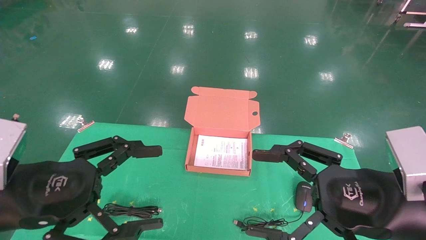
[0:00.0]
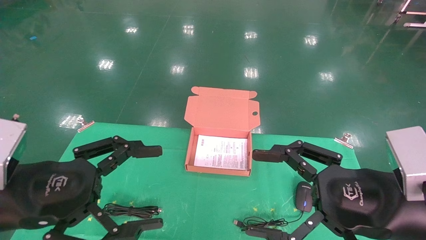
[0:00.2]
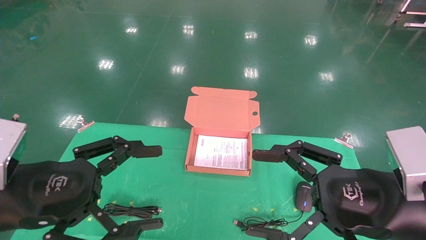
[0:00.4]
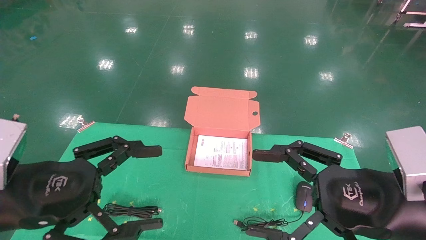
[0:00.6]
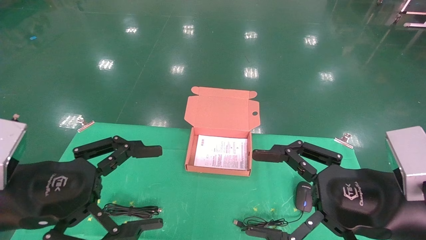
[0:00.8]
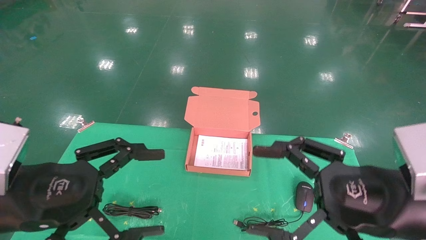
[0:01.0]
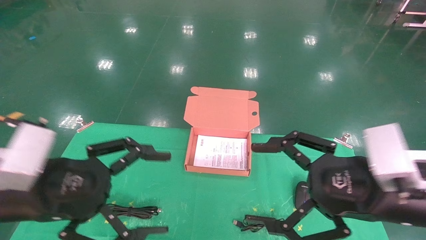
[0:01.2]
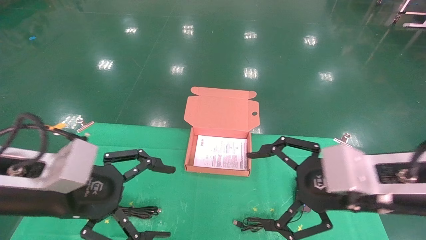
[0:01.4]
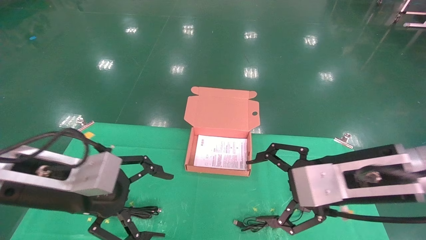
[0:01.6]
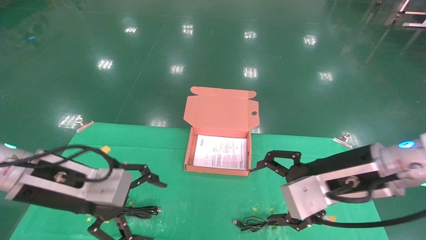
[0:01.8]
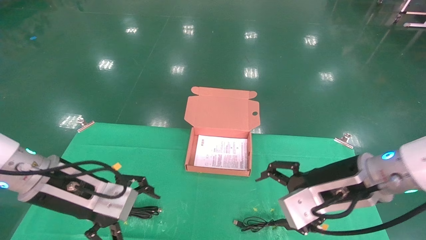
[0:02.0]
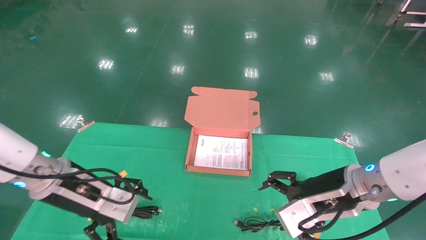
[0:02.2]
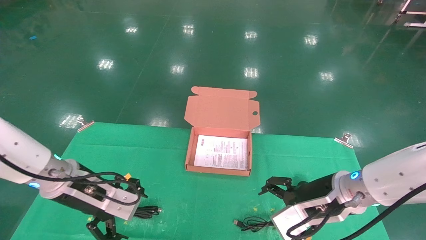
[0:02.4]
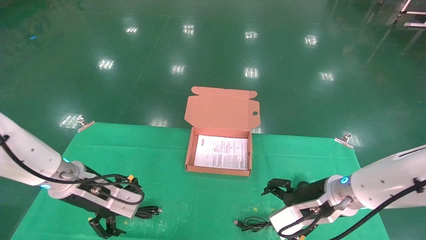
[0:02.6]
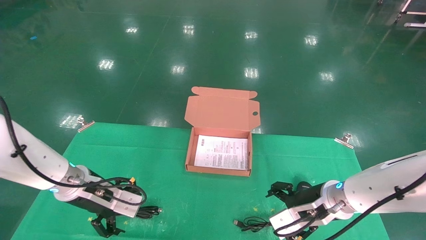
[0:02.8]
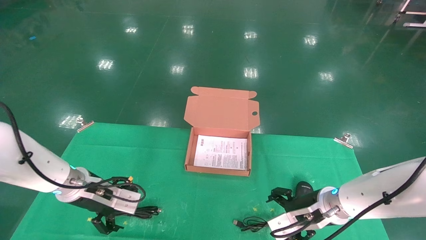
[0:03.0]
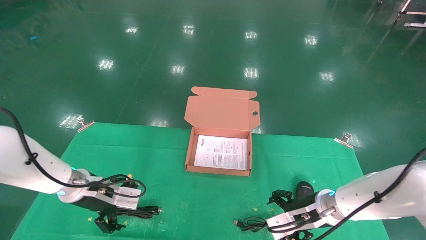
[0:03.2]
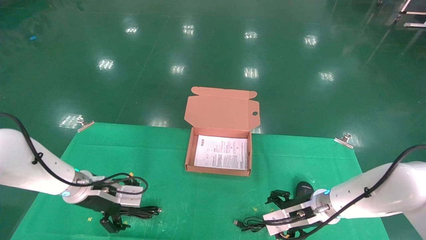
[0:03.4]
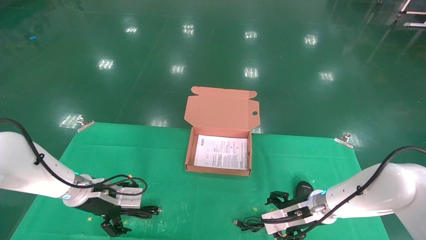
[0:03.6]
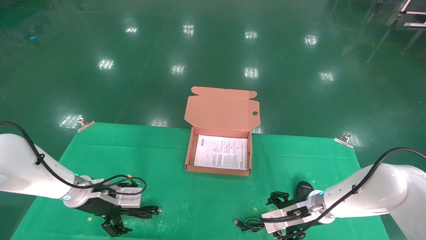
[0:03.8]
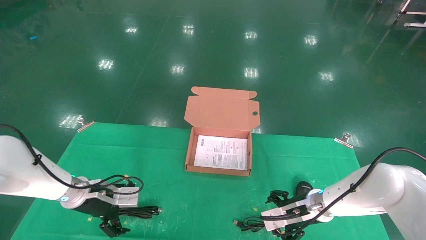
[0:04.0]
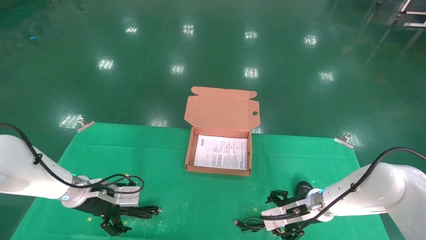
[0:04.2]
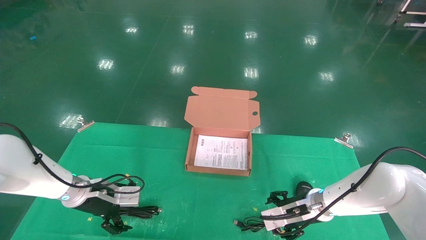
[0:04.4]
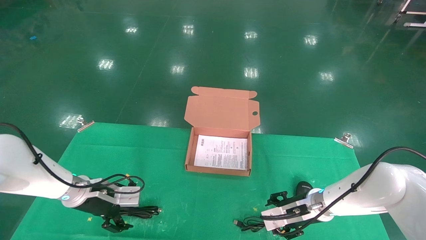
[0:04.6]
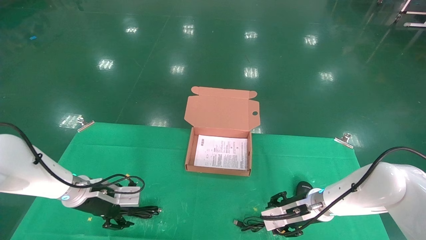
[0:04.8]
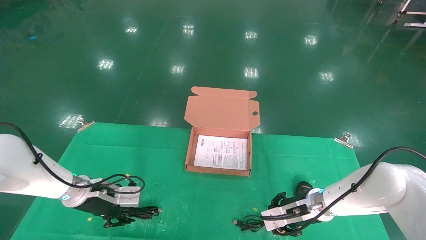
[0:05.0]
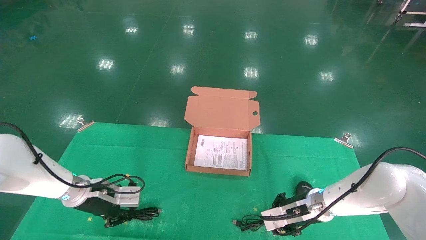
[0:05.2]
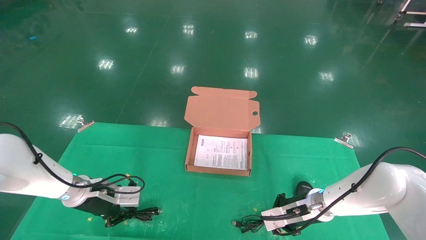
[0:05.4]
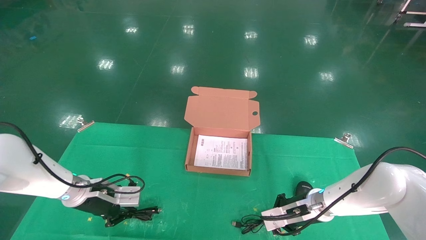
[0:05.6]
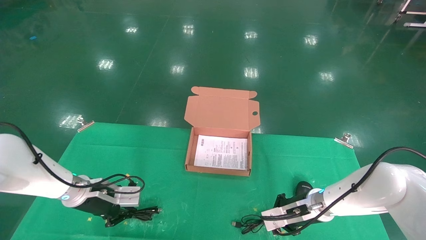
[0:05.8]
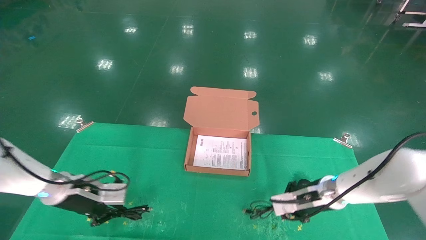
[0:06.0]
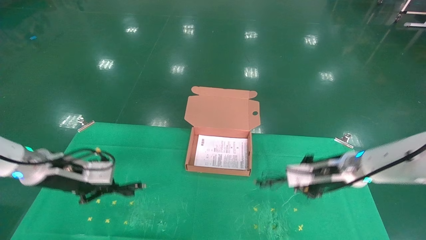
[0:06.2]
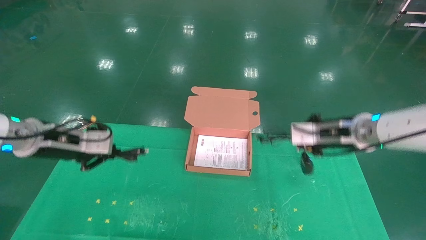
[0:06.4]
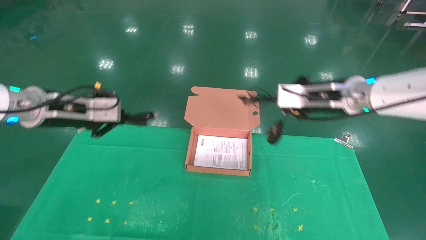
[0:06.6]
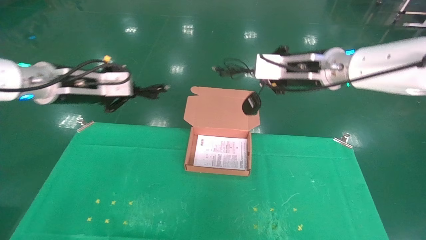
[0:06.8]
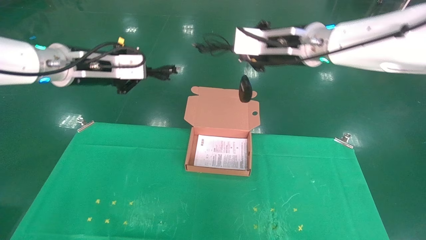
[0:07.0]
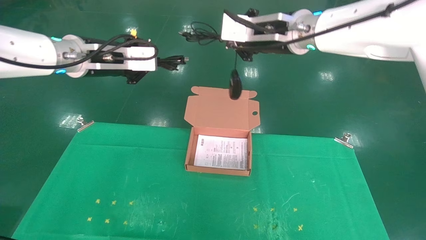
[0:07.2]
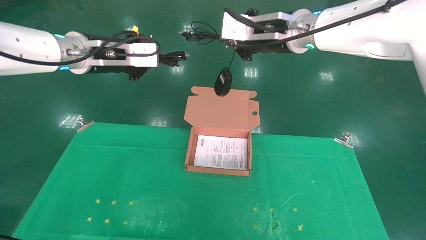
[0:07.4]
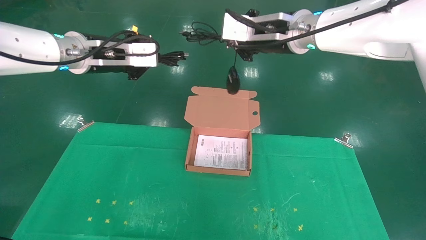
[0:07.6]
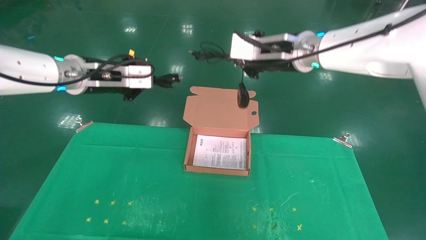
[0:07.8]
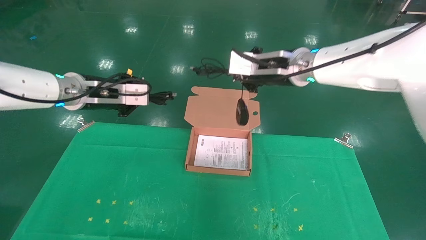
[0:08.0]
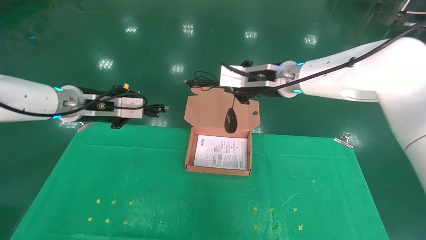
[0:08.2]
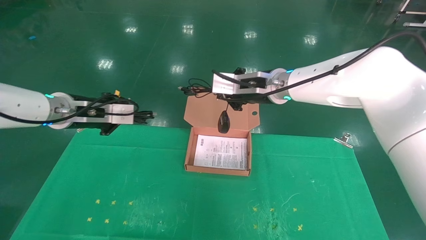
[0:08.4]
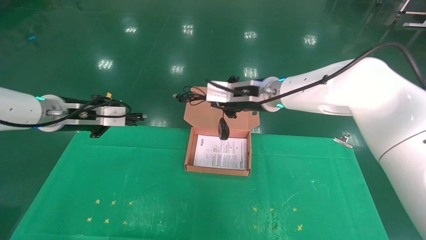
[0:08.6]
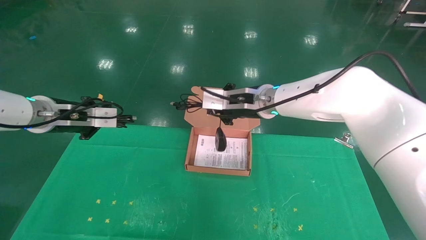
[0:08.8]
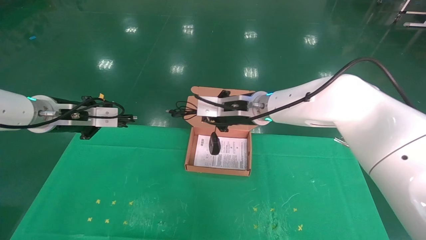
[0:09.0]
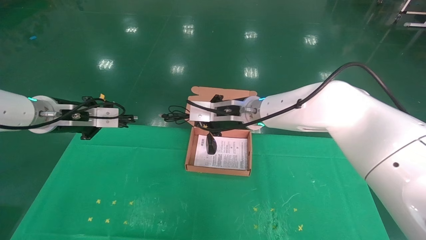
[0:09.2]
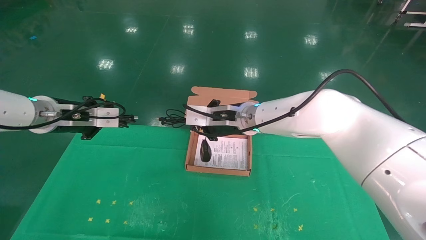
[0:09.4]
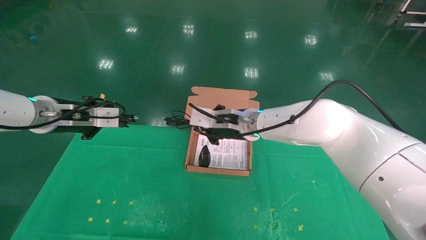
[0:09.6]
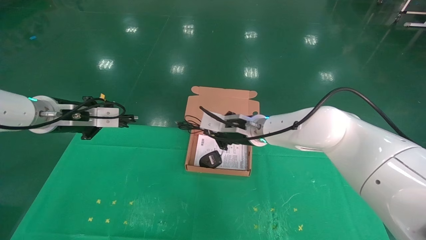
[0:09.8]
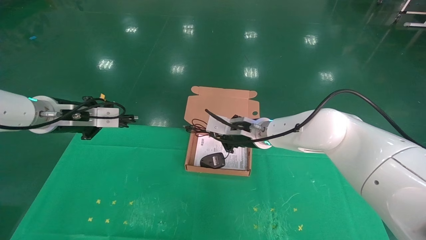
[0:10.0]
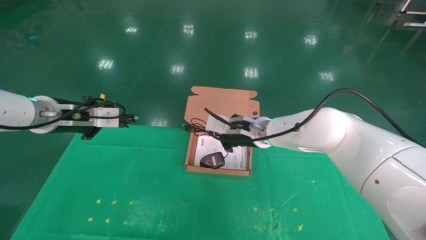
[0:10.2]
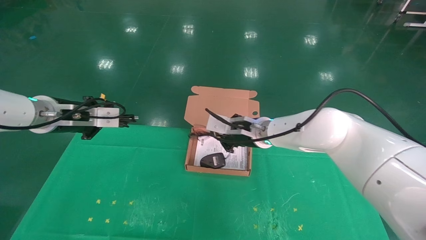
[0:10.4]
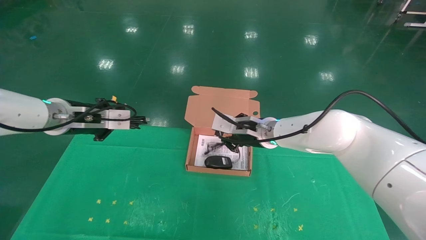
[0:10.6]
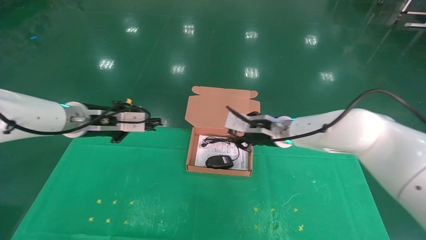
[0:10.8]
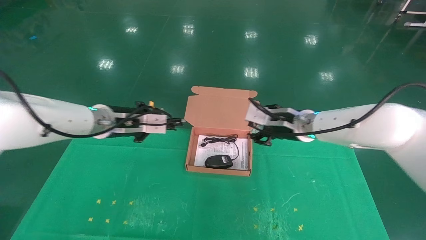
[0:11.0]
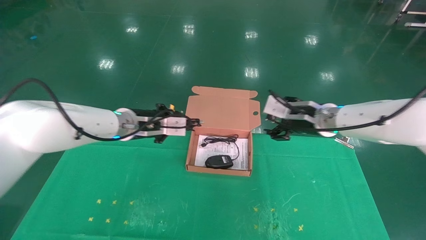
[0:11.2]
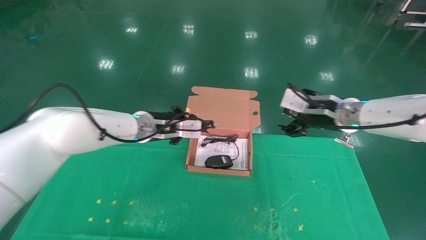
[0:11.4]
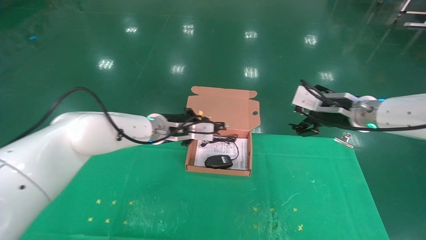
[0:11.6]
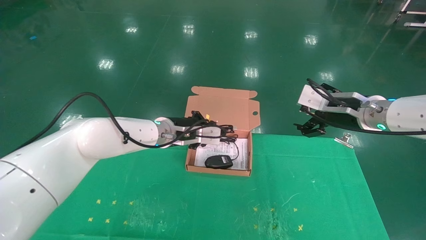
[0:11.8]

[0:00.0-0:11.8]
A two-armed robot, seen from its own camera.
Task of the whole recording: grasp data cable left put into box grasp mouse right put into box.
Step, 0:01.0 to 0:06.0: Grab and pick up both the mouse and power cord from the accessory packaging area at the same time.
0:01.4 to 0:03.0: The left gripper moves forward and downward, some 20 cm, while the right gripper travels downward and forward by approximately 20 cm.
0:03.0 to 0:04.4: The left gripper shifts by some 5 cm; the right gripper moves roughly 5 cm.
0:04.4 to 0:06.0: The grippers both shift upward by roughly 5 cm. The right gripper closes up; the left gripper closes up.
0:06.0 to 0:07.4: The right gripper shifts about 30 cm upward and to the left. The left gripper moves upward and to the right, some 25 cm.
0:07.4 to 0:08.8: The right gripper moves downward, about 15 cm. The left gripper moves downward and to the left, some 15 cm.
0:08.8 to 0:10.4: The right gripper heads downward, covering roughly 5 cm.
0:10.4 to 0:11.8: The right gripper moves to the right and backward, approximately 20 cm, and opens up, while the left gripper shifts approximately 20 cm to the right.

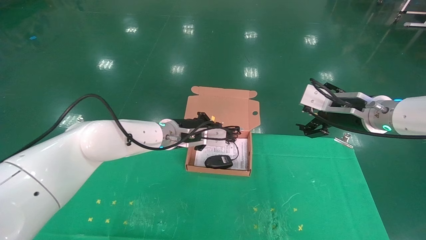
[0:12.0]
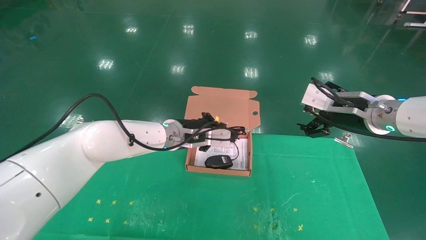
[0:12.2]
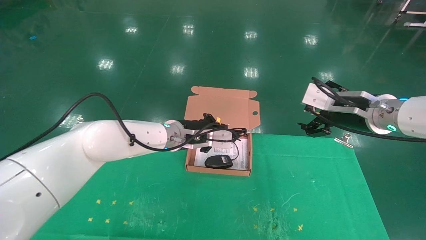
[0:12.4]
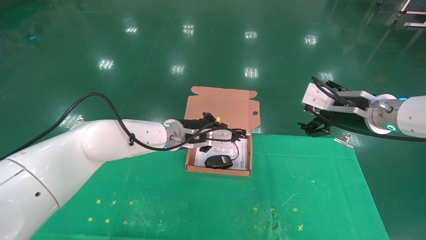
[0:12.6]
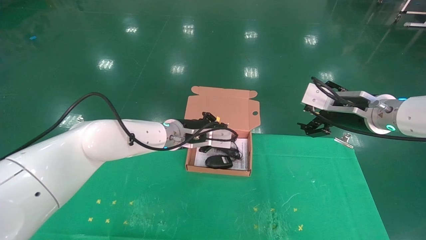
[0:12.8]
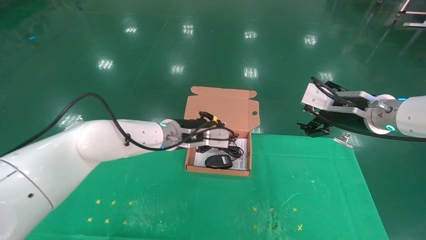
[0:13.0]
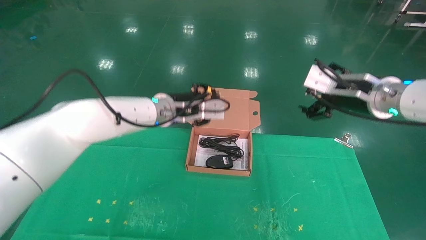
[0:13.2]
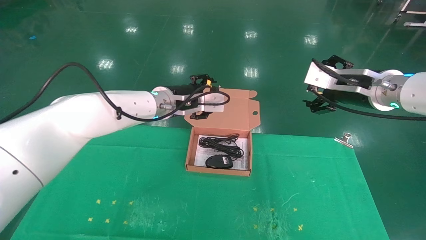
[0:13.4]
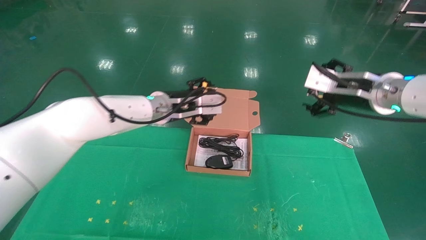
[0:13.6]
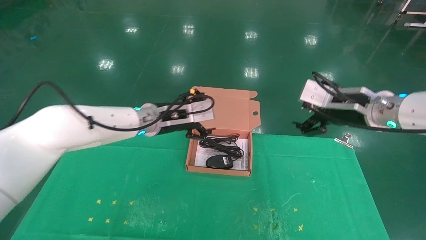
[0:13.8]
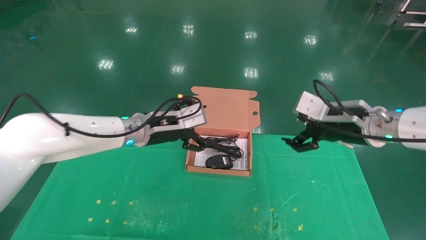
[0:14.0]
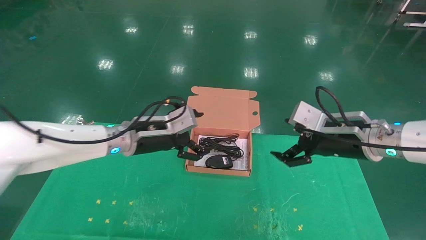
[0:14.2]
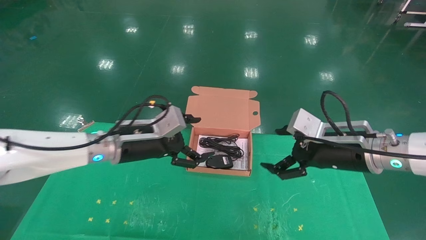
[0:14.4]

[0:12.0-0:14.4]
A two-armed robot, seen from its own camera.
Task of the whole recording: grasp data cable left put into box grasp mouse right put into box.
0:12.0 to 0:13.2: The left gripper shifts approximately 5 cm upward, and opens.
0:13.2 to 0:14.4: The left gripper heads backward, to the left and downward, covering roughly 15 cm, and opens its fingers, while the right gripper travels downward and backward by roughly 10 cm.
